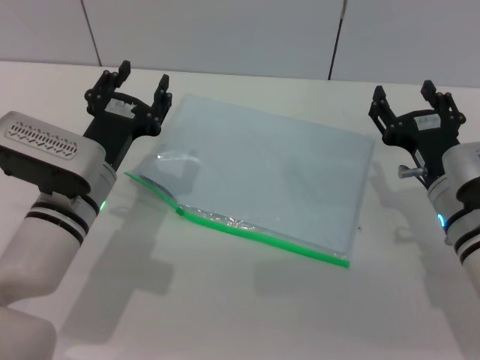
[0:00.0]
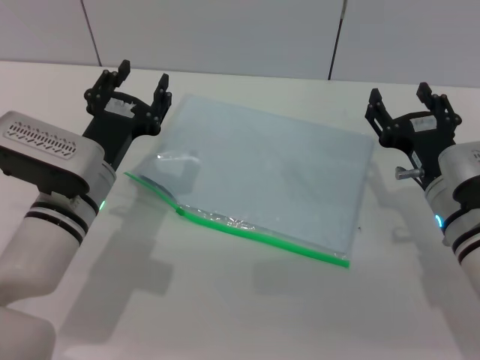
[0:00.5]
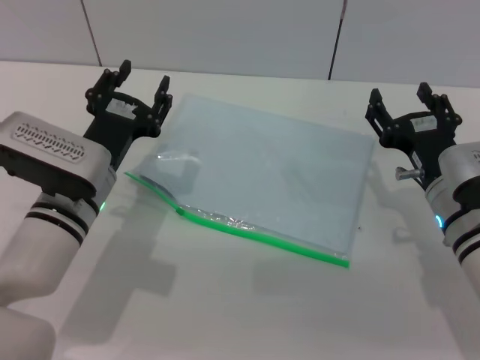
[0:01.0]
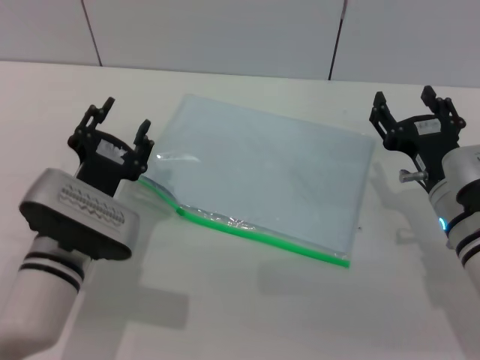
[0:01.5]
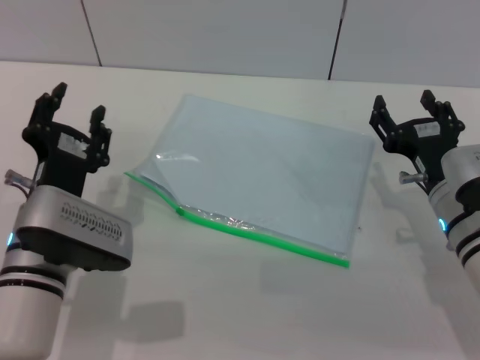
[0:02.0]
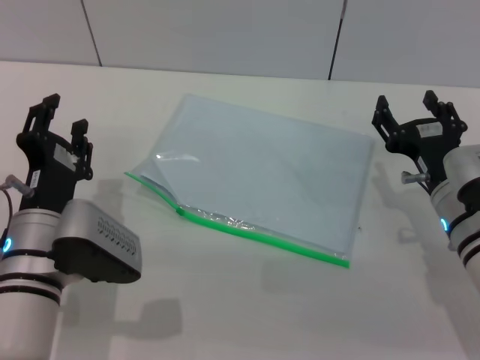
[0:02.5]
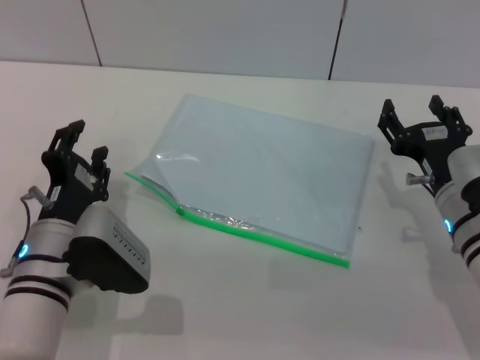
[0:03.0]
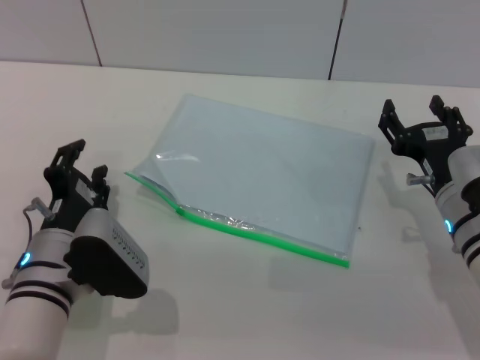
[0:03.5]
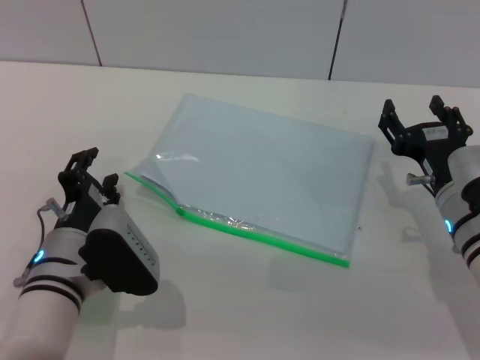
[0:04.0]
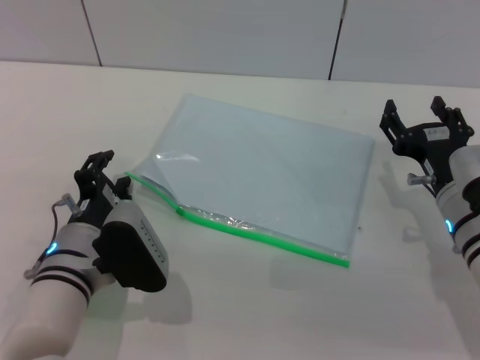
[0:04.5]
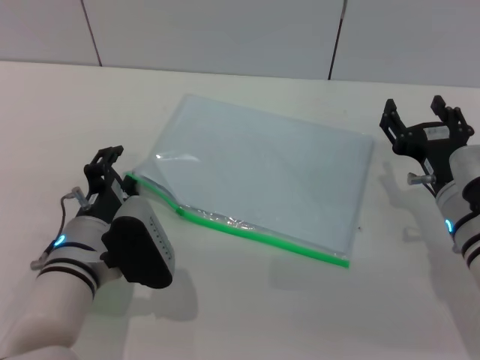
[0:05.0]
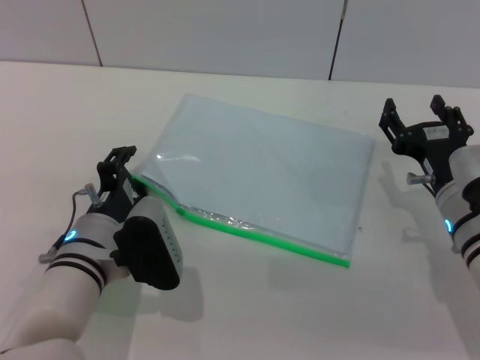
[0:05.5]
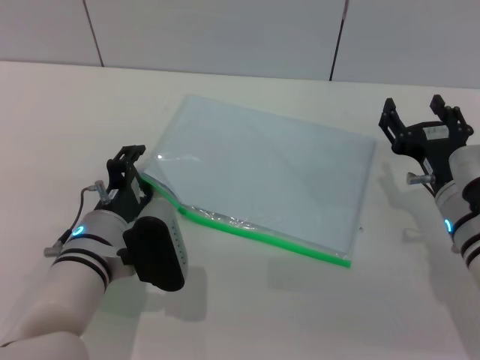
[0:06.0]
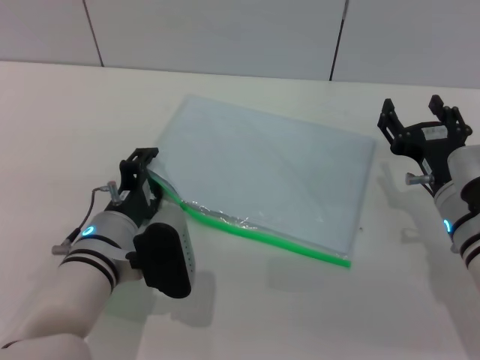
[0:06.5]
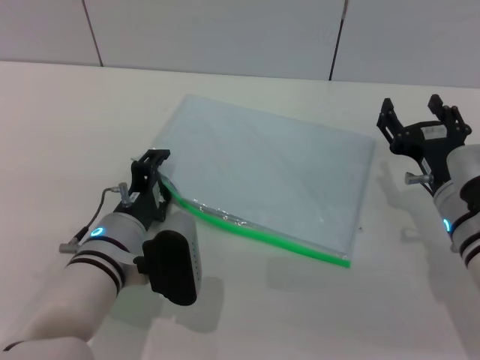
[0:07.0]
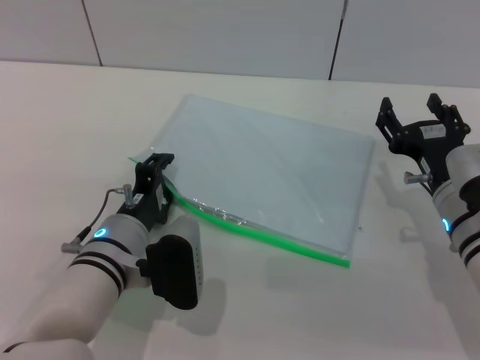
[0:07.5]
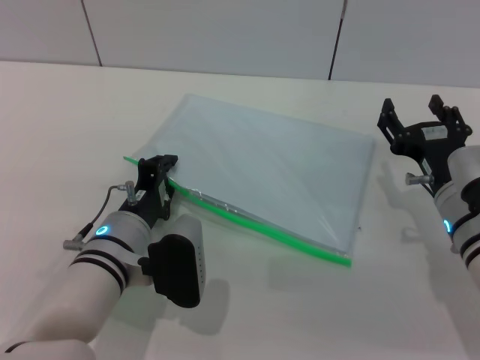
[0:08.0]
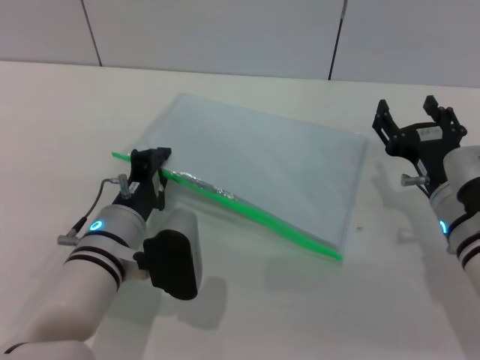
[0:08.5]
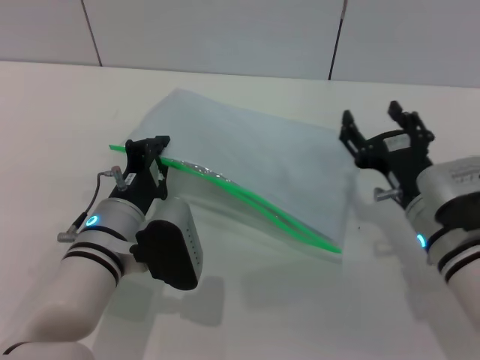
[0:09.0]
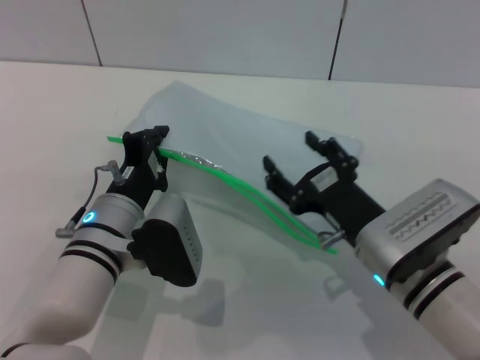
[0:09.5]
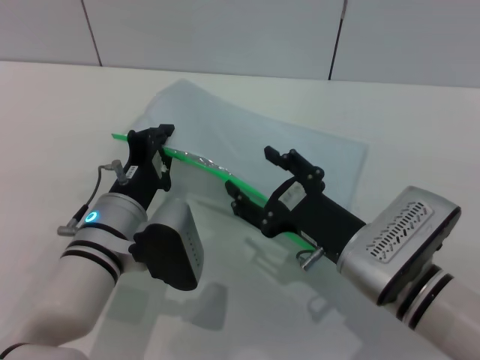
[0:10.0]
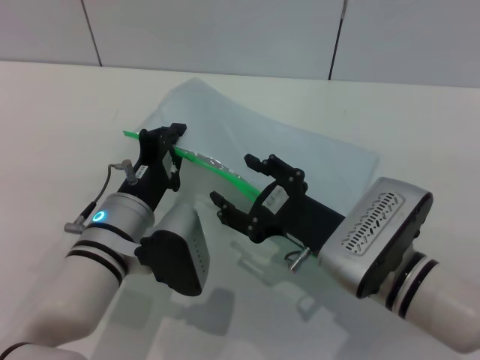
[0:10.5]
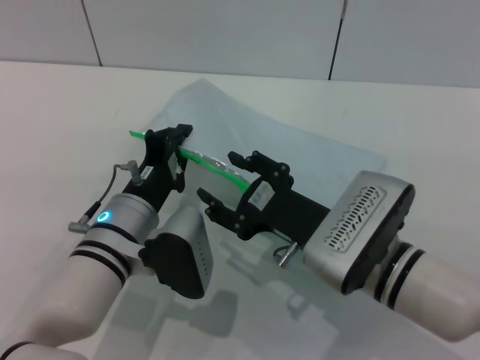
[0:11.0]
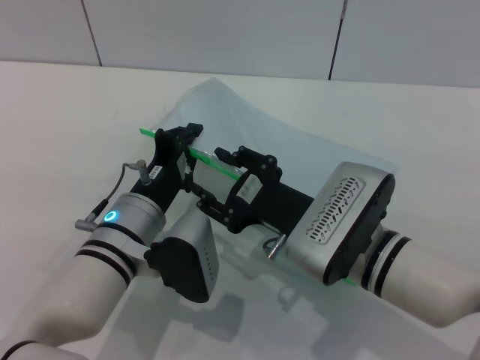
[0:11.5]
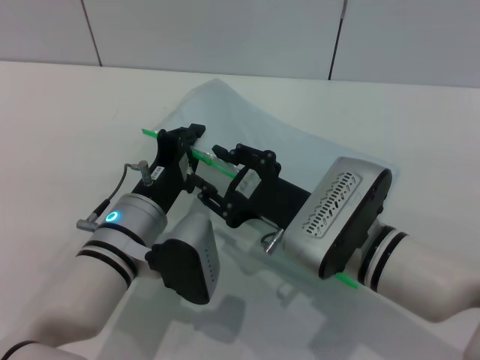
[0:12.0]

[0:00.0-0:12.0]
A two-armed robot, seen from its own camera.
Step, 0:00.0 to 0:10.0: Pick up the transparent plastic bag with the left gripper.
0:00.0 to 0:02.0: The left gripper goes some 5 cm backward.
0:04.0 to 0:06.0: The grippers stay close to where they were, moving slightly.
0:06.0 to 0:08.0: The left gripper closes up.
0:08.0 to 0:10.0: The right gripper moves to the left and backward, about 10 cm.

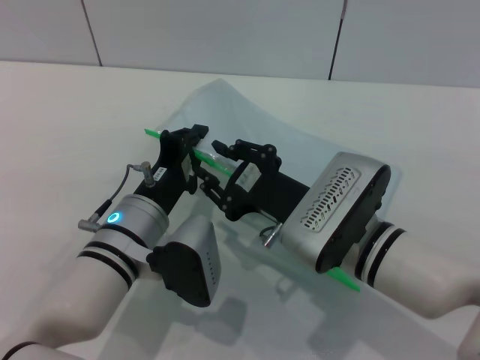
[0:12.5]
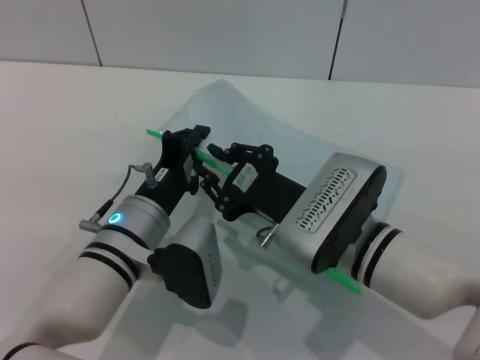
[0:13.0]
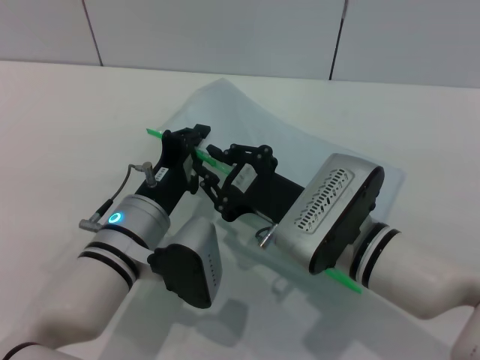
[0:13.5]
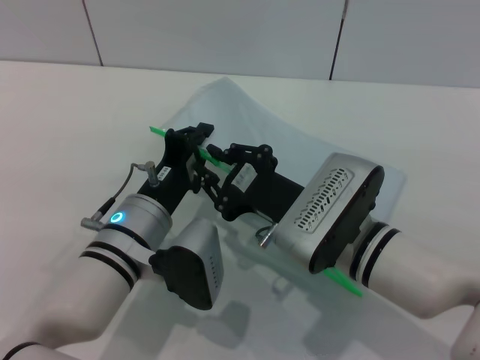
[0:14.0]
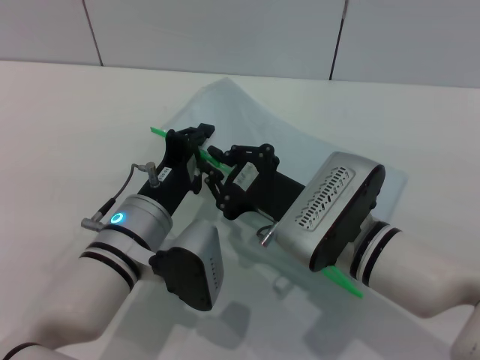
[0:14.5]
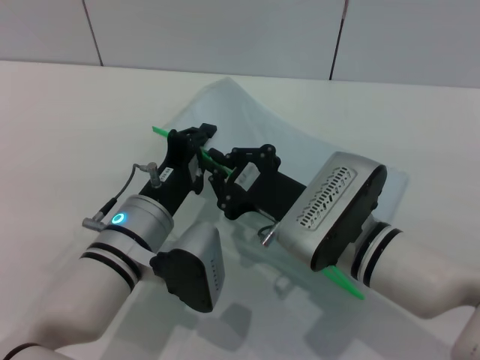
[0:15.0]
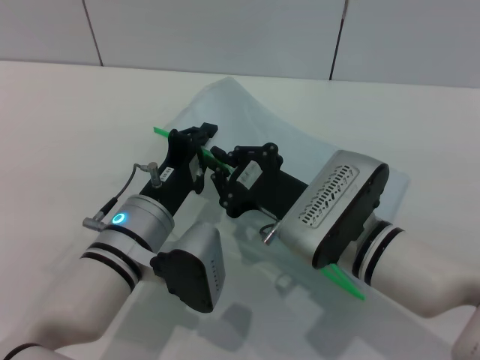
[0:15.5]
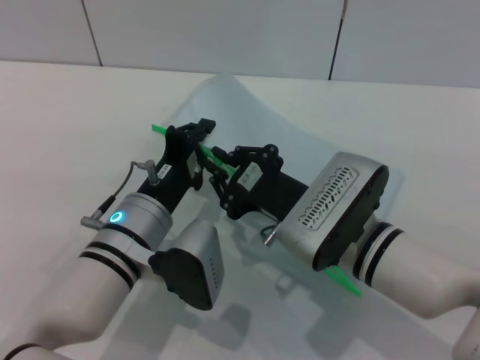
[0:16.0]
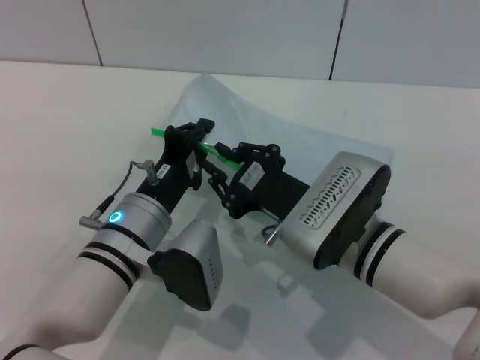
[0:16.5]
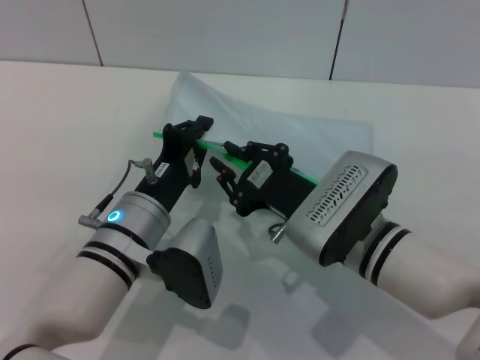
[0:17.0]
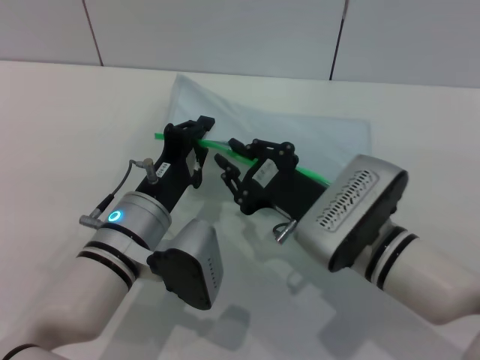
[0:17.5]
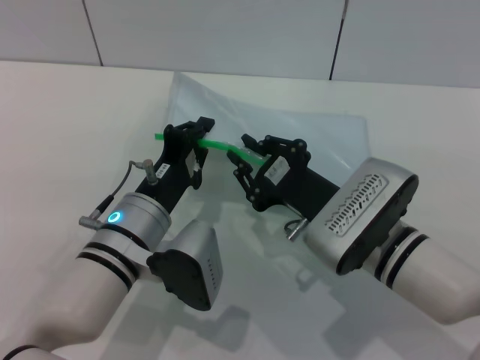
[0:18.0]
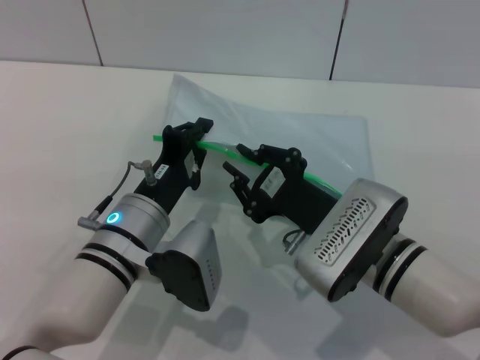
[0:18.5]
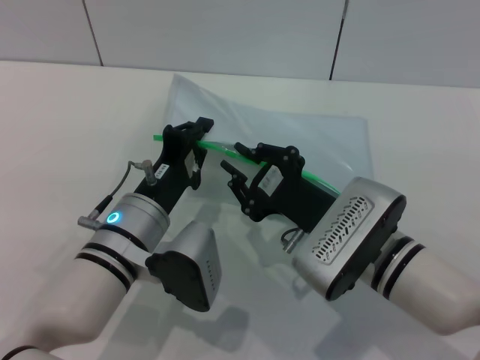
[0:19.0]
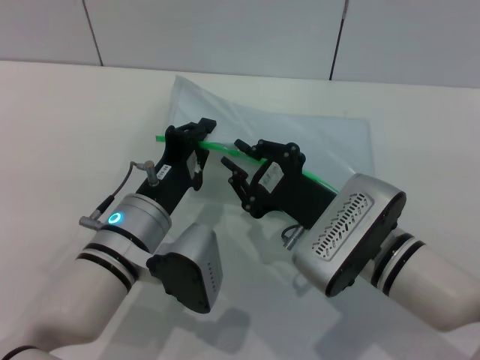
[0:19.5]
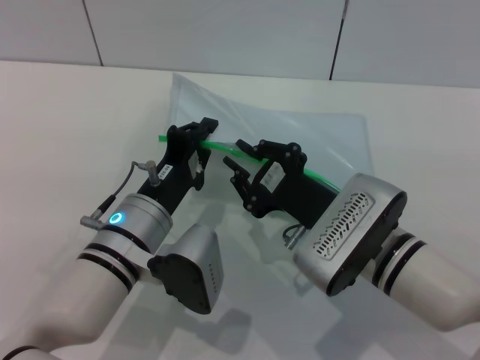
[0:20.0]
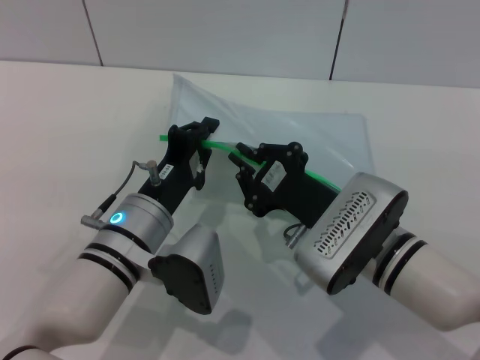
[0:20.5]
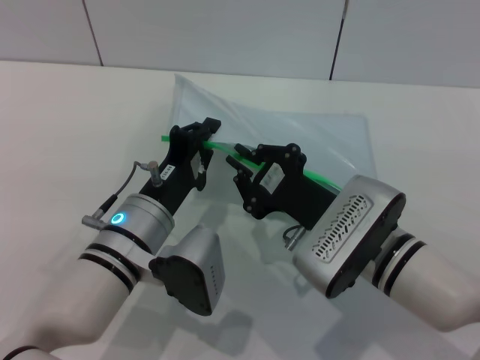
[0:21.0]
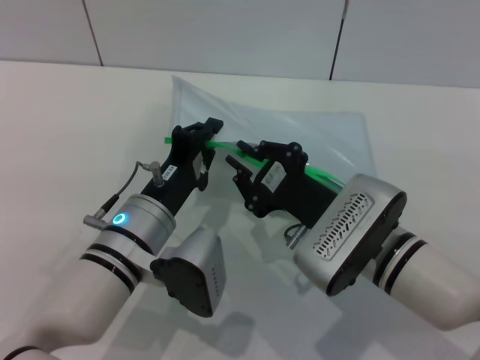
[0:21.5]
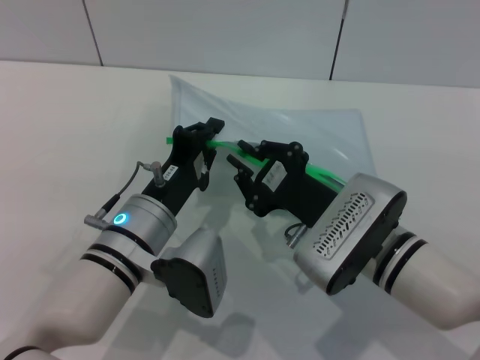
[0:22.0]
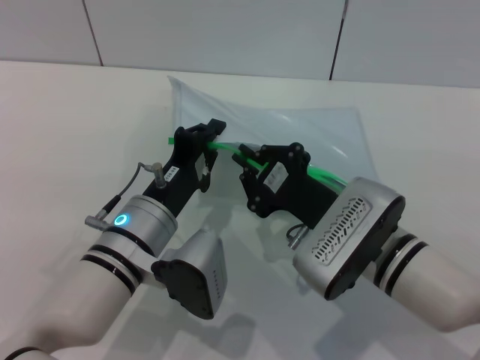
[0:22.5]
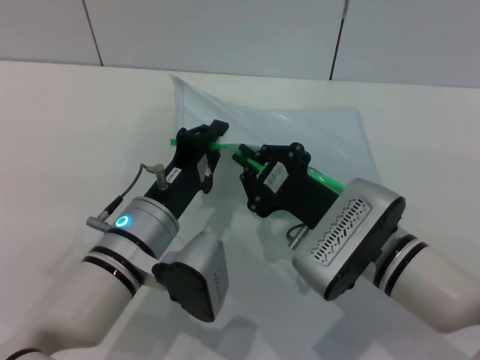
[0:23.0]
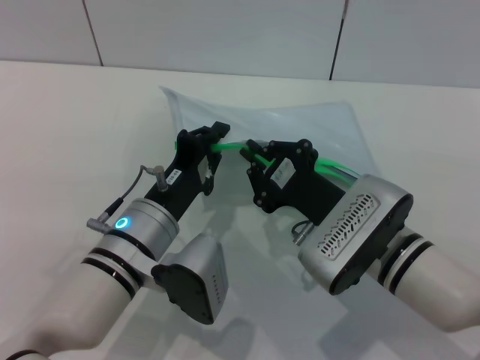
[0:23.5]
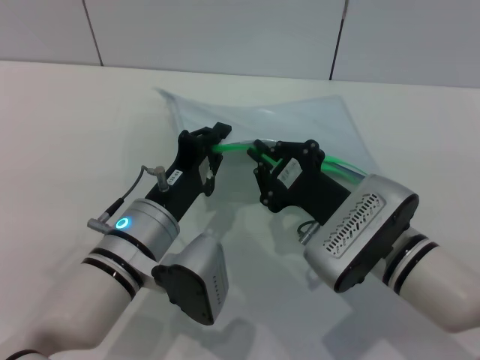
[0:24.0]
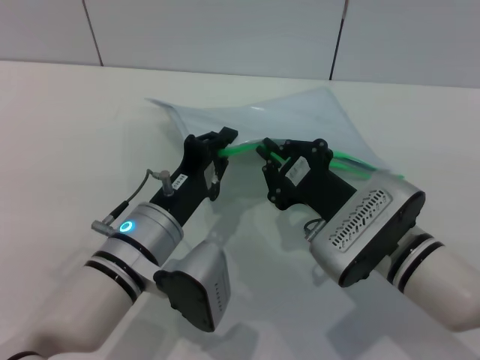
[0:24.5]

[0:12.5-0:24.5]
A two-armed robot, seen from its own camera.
0:12.5 to 0:16.5: Neither gripper changes place.
0:16.5 to 0:18.5: The grippers move only a little.
0:18.5 to 0:22.5: Both grippers stay about where they are.
0:22.5 to 0:24.5: The grippers make only small movements.

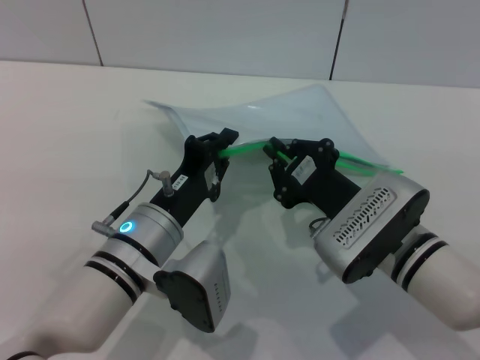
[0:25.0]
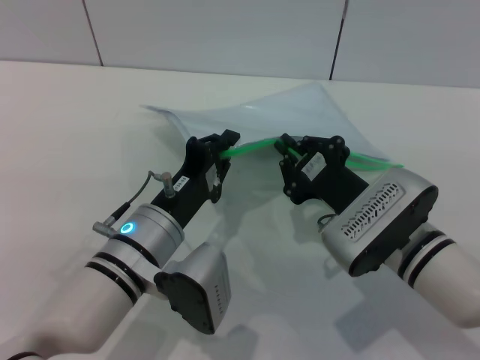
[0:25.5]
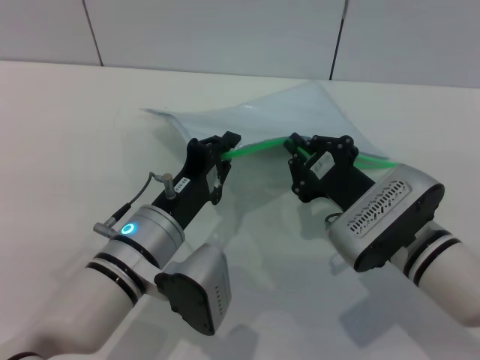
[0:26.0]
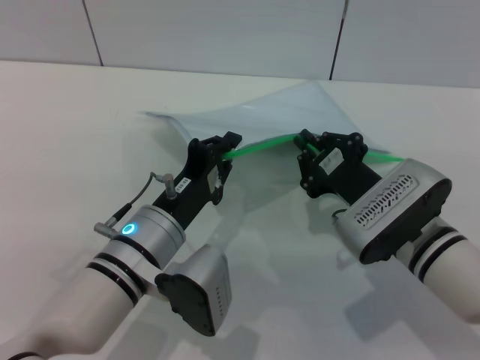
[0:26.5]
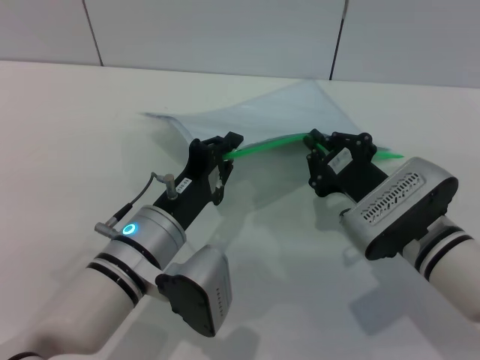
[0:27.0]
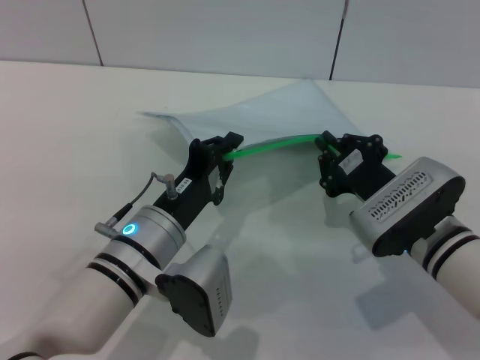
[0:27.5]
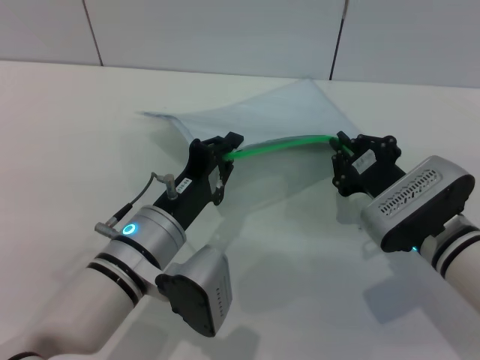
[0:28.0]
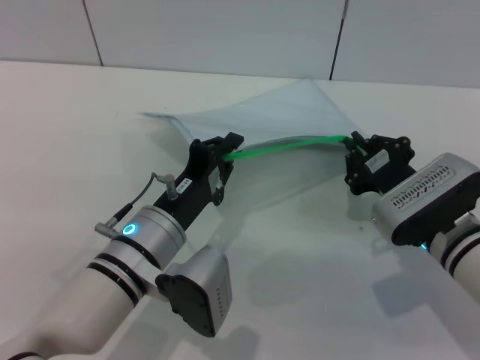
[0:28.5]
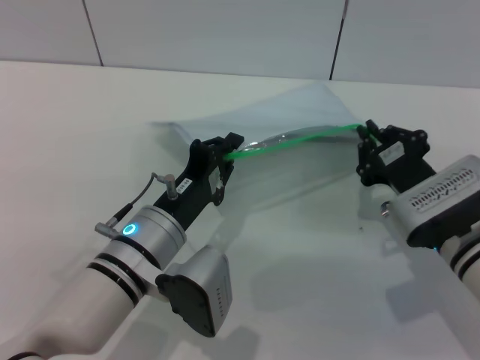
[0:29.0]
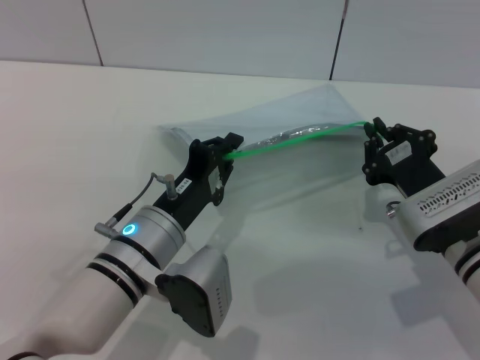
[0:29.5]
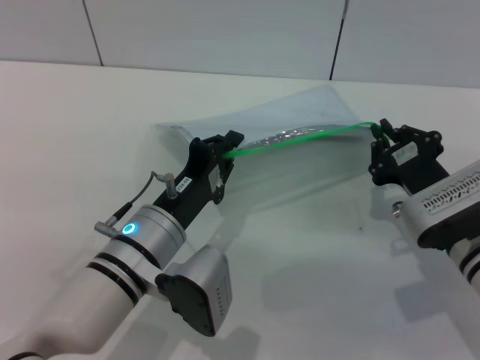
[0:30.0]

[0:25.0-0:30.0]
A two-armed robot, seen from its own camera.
0:25.0 to 0:27.5: There are only small adjustments of the grippers.
0:27.5 to 0:30.0: The grippers move only a little.
